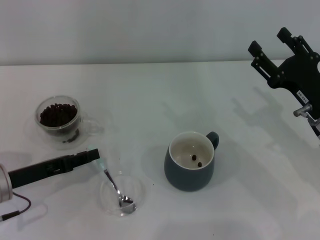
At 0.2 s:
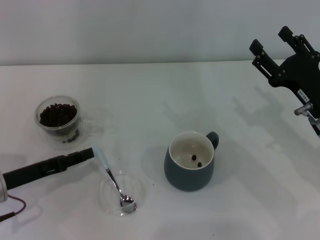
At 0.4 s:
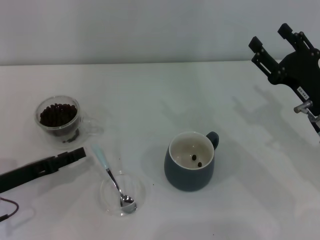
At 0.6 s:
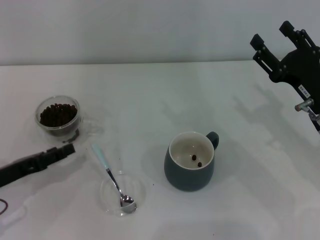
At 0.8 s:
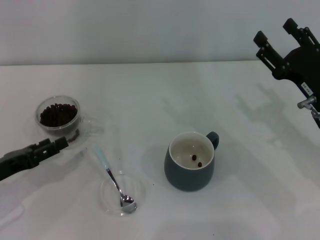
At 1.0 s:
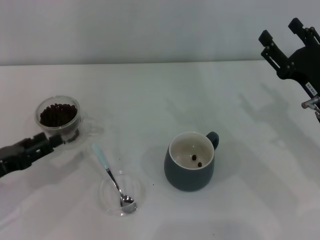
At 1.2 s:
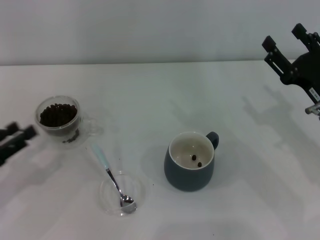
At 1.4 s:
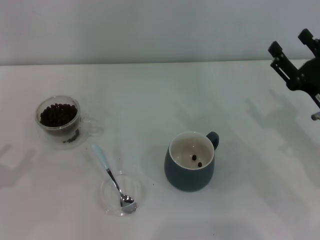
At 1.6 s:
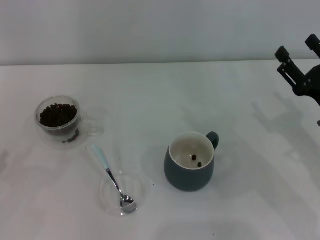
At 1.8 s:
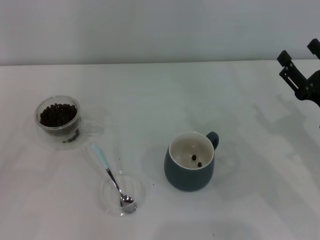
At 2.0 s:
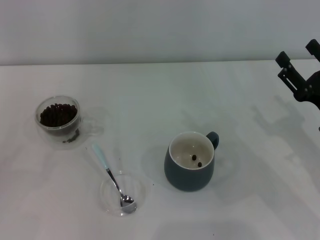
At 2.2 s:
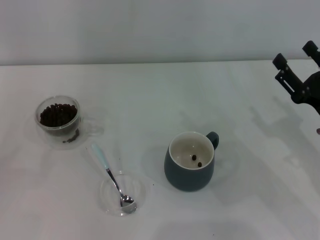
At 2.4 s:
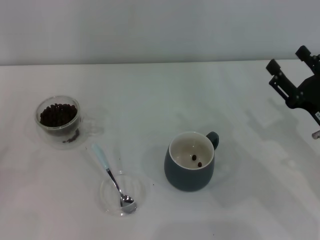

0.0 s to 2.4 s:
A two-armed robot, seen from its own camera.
Task of the whole recording: Use a blue spoon to take out the coffee beans from the glass and pour them into the gray cup.
0.0 to 1.2 s: The left gripper shifts some 5 cm to the left, and opens.
1.2 to 2.4 s: The left gripper goes about 10 cm to the left.
